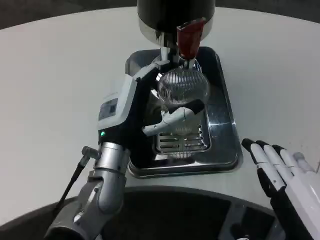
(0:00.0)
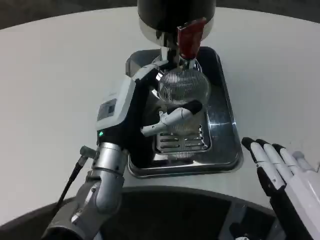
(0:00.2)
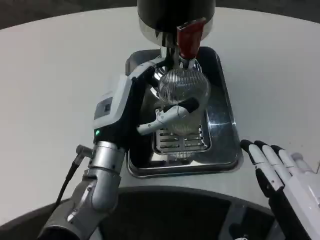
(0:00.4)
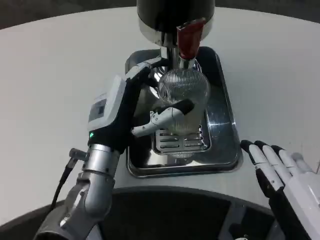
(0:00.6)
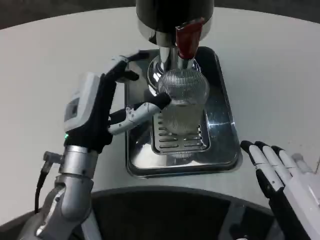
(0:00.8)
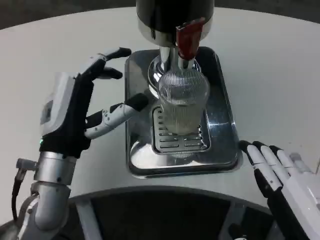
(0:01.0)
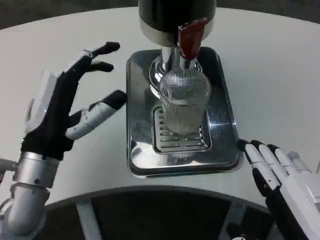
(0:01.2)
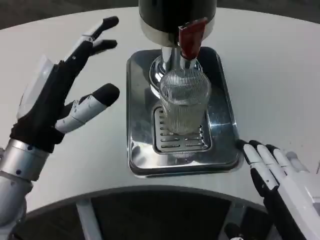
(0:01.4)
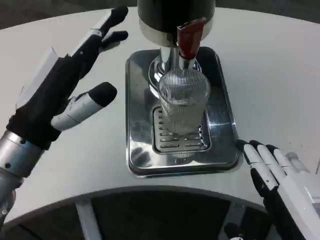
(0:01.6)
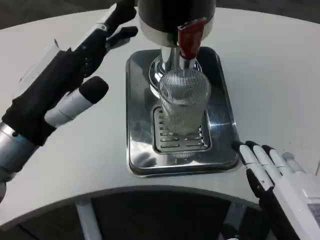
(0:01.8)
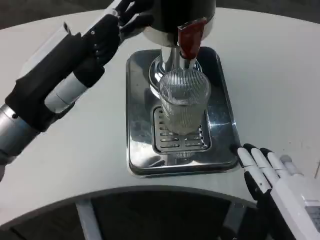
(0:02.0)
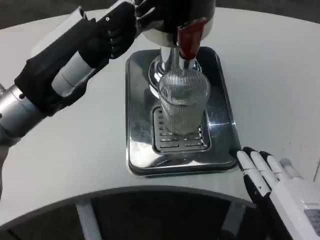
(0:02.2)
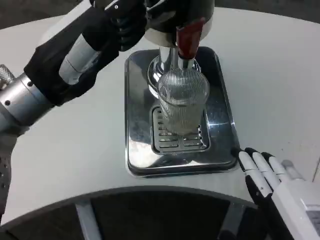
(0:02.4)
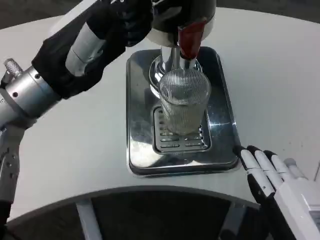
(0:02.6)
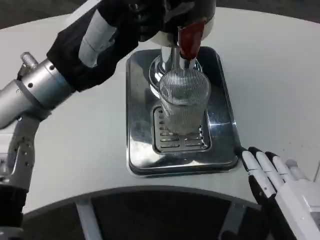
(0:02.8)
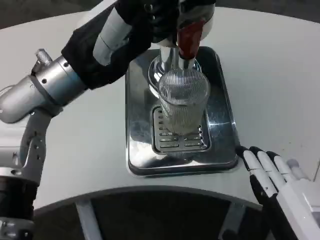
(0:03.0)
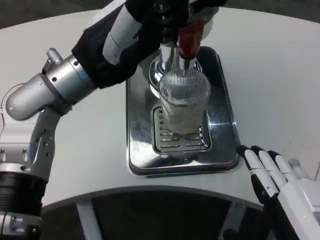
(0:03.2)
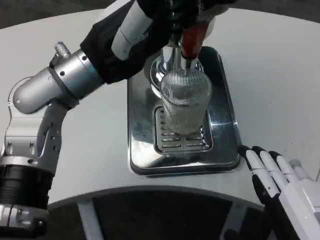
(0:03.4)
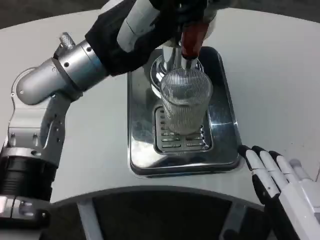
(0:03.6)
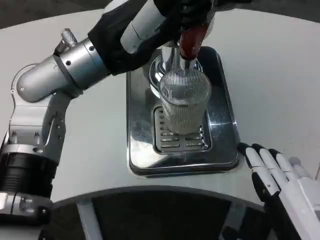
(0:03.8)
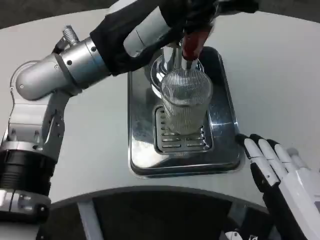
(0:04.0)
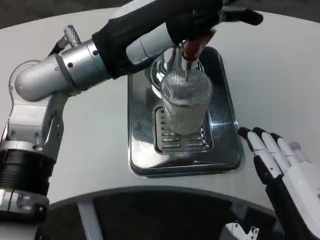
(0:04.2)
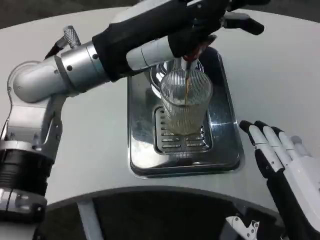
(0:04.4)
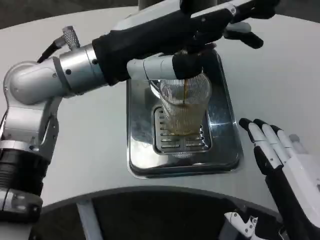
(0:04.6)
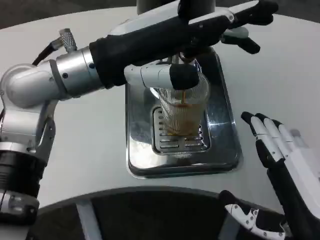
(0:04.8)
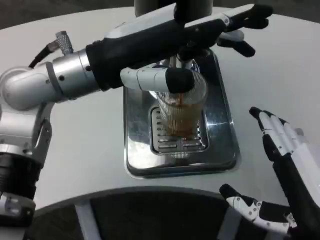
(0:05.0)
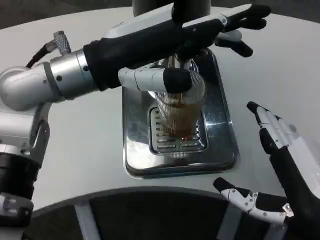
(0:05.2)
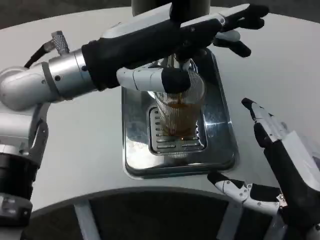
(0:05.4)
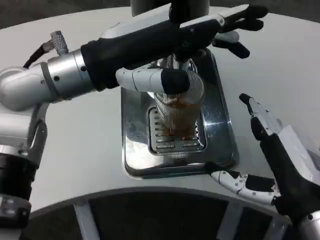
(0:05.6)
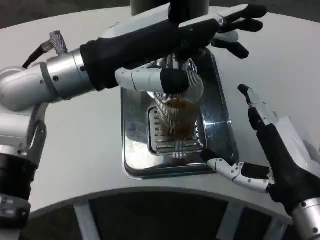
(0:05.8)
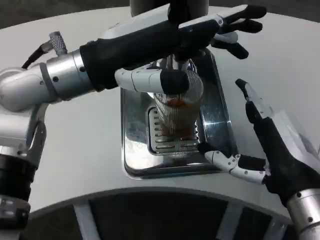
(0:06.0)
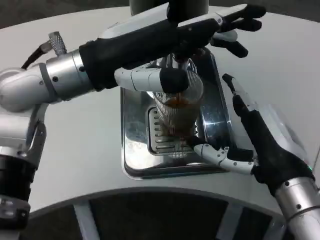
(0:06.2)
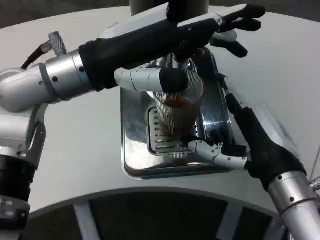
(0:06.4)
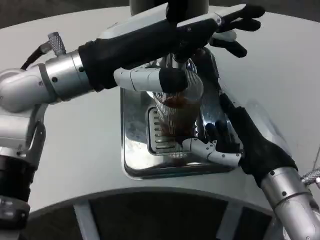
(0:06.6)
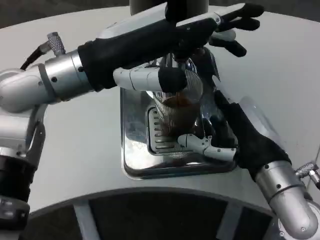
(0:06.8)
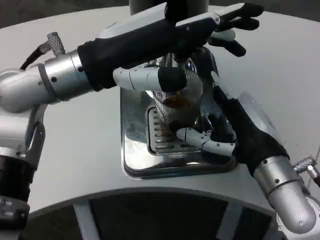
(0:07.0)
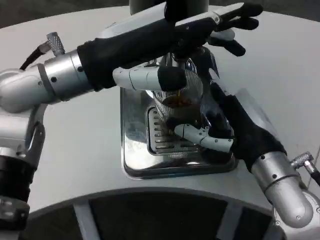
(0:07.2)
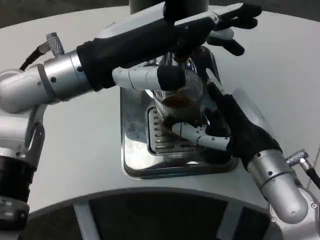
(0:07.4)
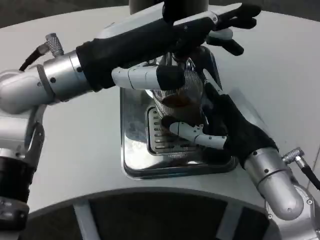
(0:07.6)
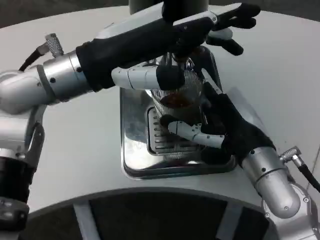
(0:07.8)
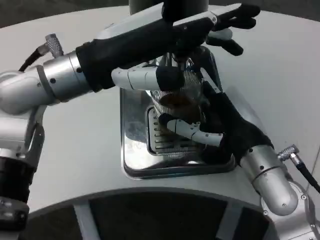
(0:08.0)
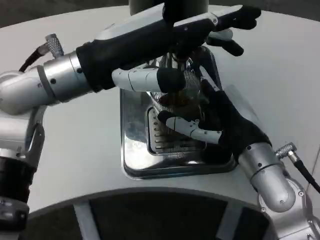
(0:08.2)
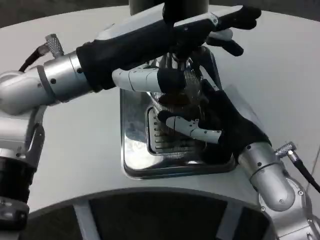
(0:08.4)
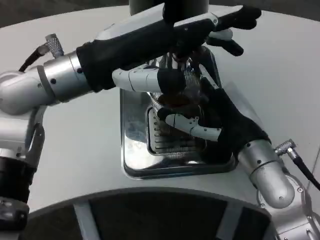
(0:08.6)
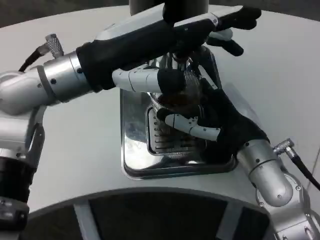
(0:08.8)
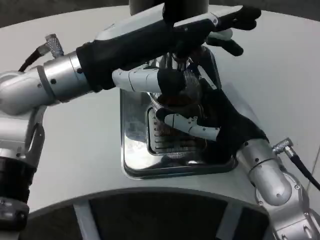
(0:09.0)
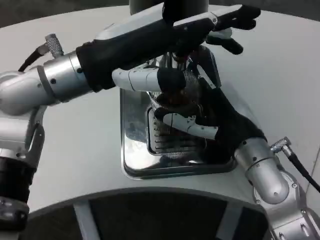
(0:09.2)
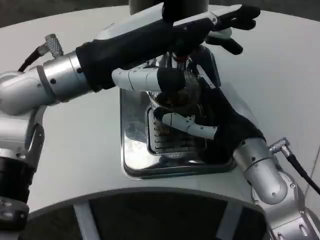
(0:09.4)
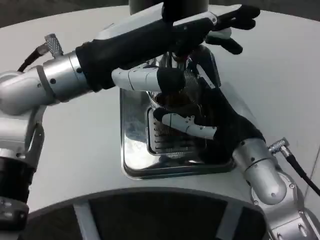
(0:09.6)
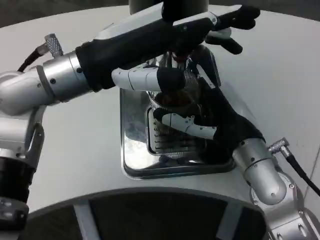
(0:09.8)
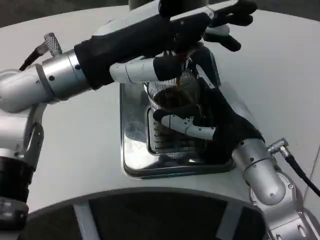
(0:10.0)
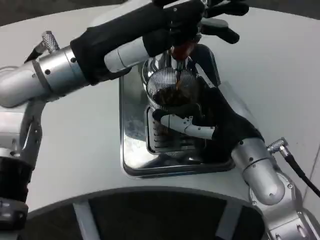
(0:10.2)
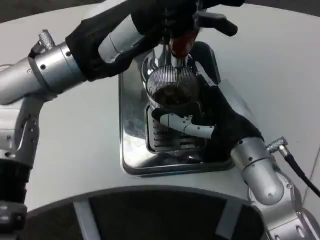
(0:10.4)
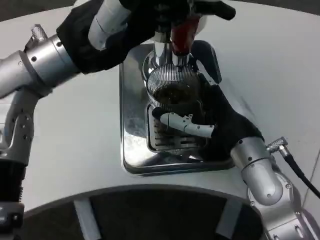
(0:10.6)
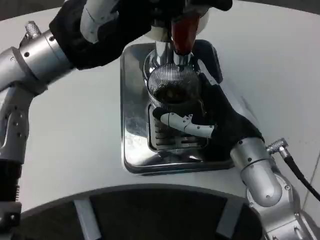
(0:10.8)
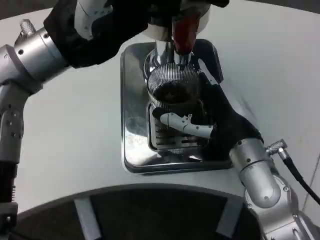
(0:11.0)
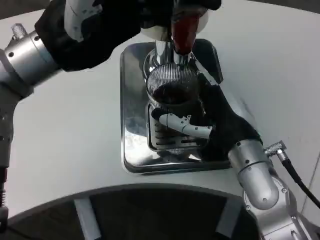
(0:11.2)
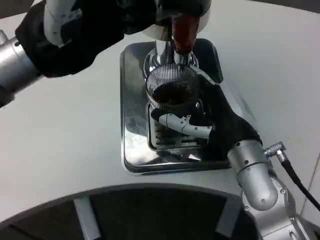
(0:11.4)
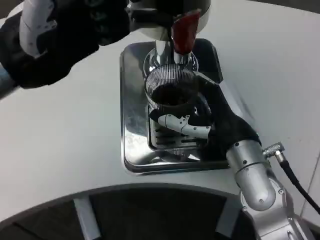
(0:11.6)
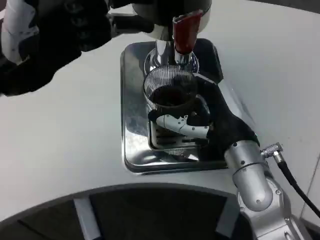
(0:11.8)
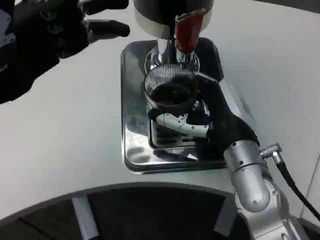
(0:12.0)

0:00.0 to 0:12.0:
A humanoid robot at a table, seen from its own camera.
Task of the whole recording: Grasp the cup under the faucet to collect the drink, then remove the cup.
0:00.0 to 0:01.6: The left hand is displaced to the left, upward and backward by about 15 cm.
0:01.6 to 0:03.0: The left hand shifts approximately 10 cm upward and forward.
0:04.4 to 0:06.0: The right hand heads forward, covering roughly 10 cm.
0:06.0 to 0:07.6: The right hand is displaced forward by roughly 5 cm.
0:07.6 to 0:09.0: There are only small adjustments of the hands.
0:10.4 to 0:12.0: The left hand heads to the left and backward, covering approximately 10 cm.

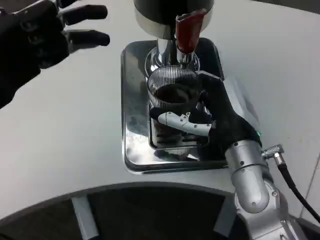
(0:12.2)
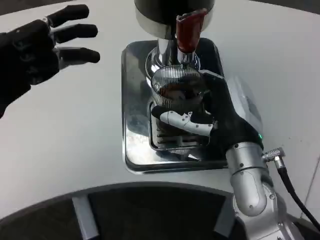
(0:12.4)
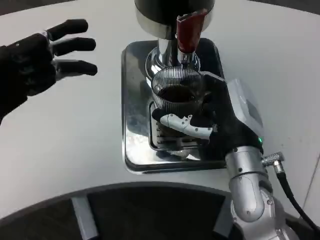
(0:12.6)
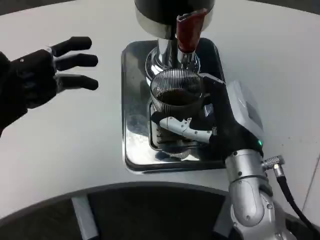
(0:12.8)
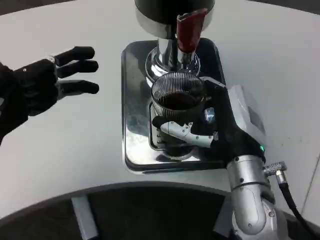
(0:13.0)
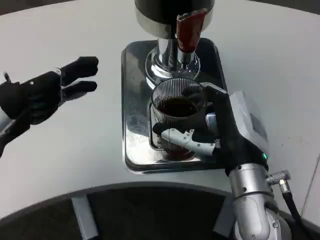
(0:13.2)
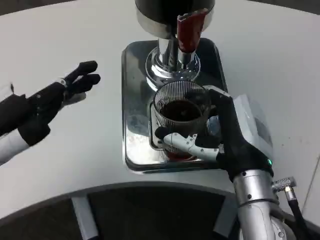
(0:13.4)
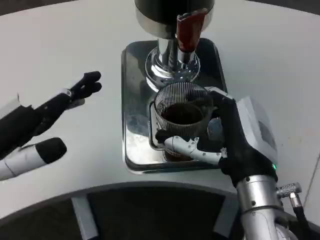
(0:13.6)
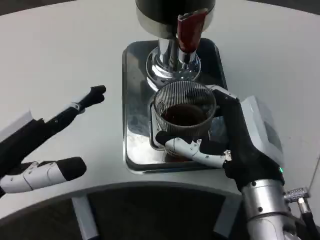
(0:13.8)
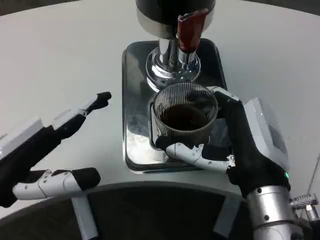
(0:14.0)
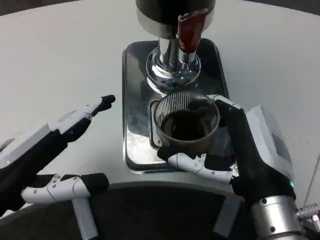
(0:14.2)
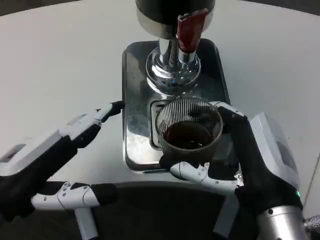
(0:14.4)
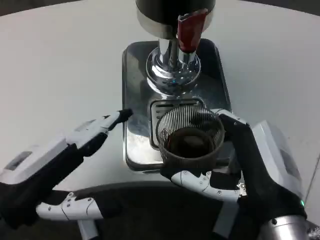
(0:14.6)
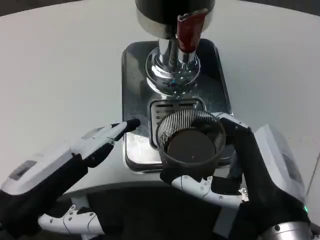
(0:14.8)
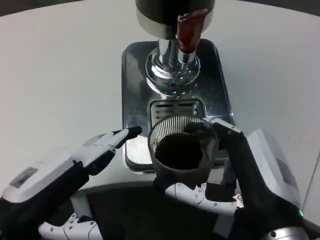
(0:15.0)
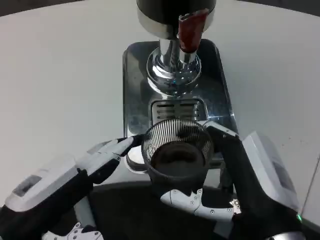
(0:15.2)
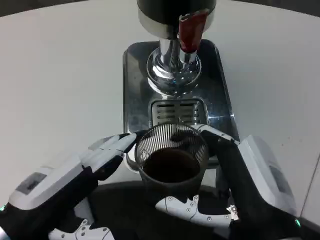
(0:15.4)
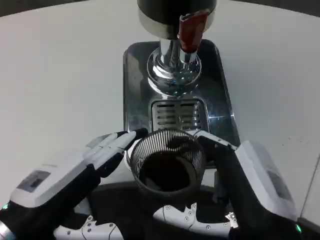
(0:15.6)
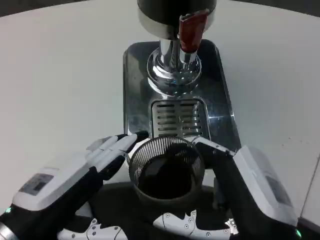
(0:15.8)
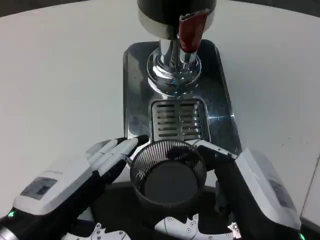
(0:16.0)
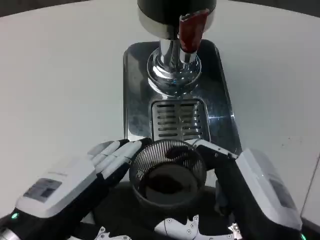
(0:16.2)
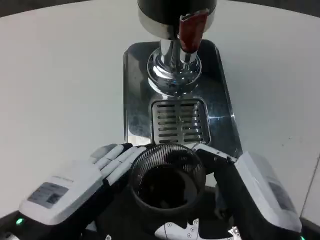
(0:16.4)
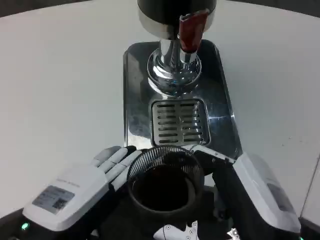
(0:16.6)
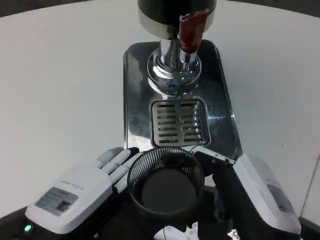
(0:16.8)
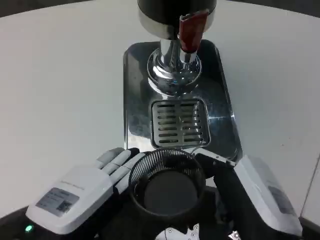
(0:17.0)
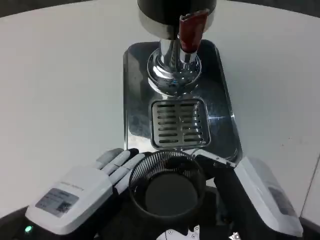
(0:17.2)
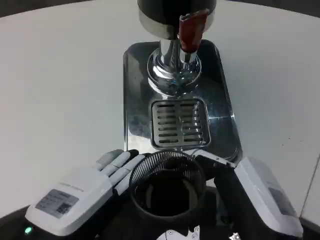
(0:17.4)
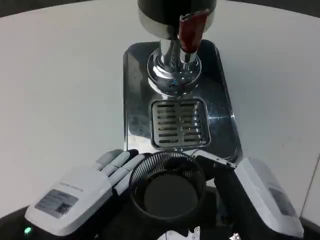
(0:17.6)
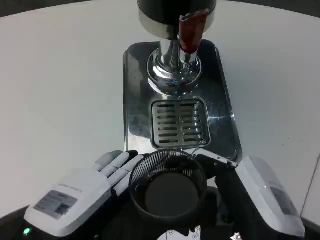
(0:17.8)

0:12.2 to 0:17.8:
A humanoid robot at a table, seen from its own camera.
Task of the whole recording: Grasp the cup under the faucet to collect the drink, then remove the cup.
0:12.2 to 0:13.6: The left hand is displaced downward and backward by approximately 10 cm; the right hand shifts about 5 cm backward.
0:13.6 to 0:15.0: The left hand goes approximately 5 cm downward; the right hand shifts about 10 cm backward.
0:16.4 to 0:17.8: Both hands stay put.

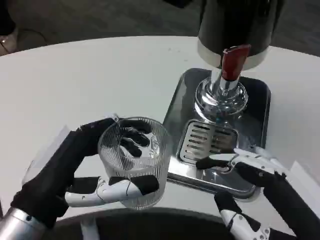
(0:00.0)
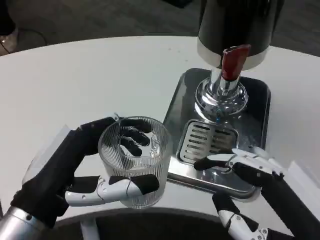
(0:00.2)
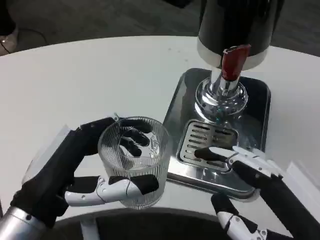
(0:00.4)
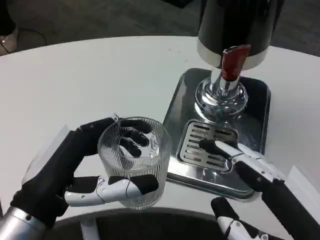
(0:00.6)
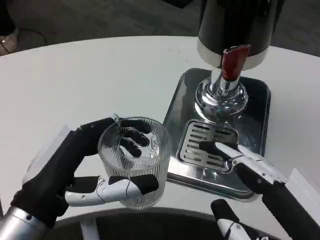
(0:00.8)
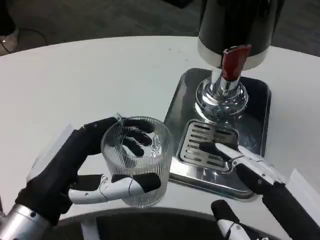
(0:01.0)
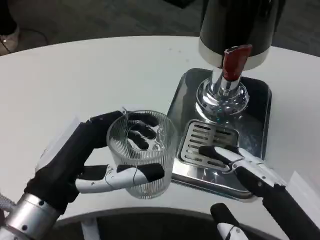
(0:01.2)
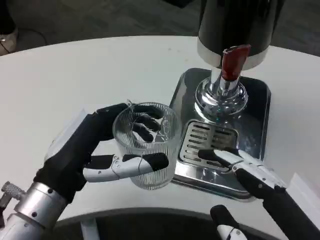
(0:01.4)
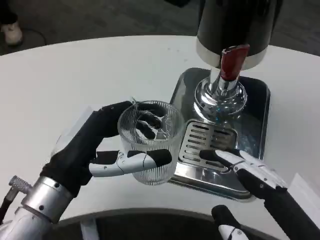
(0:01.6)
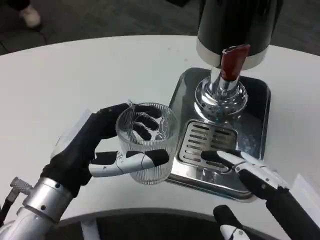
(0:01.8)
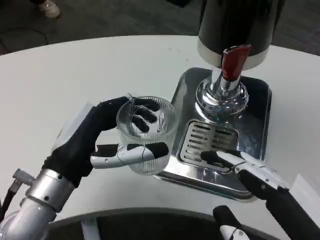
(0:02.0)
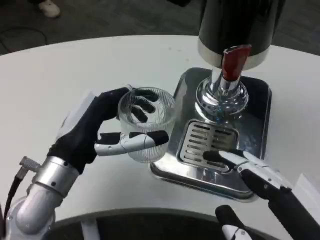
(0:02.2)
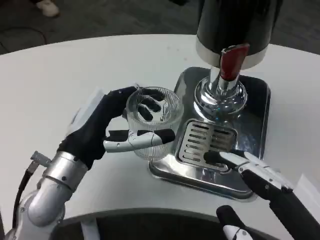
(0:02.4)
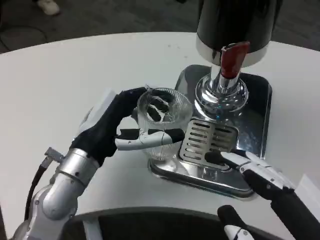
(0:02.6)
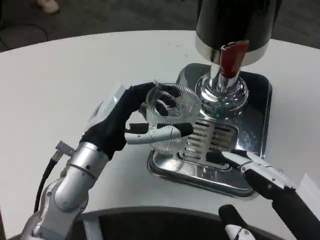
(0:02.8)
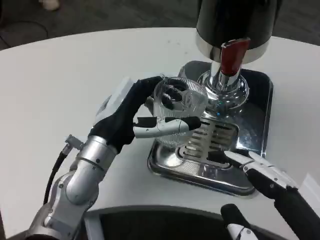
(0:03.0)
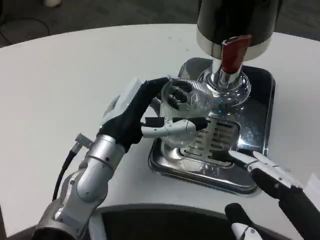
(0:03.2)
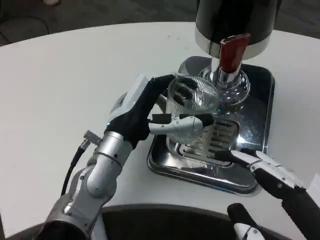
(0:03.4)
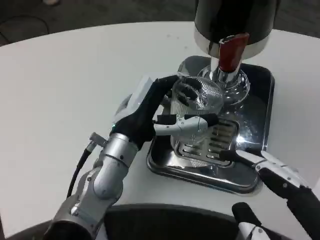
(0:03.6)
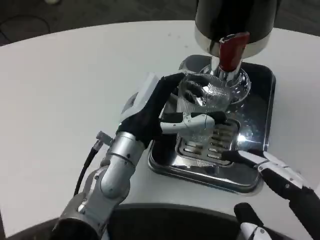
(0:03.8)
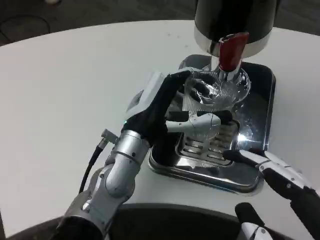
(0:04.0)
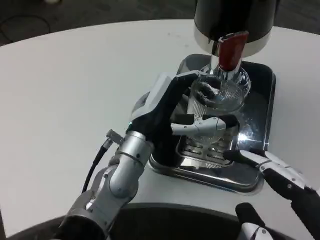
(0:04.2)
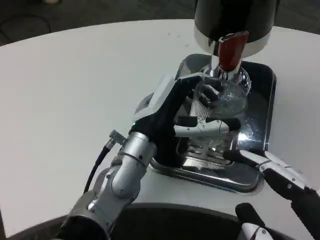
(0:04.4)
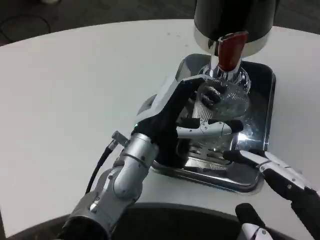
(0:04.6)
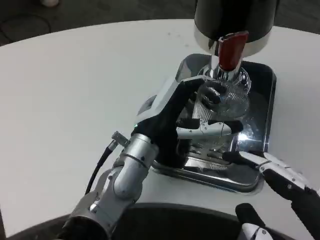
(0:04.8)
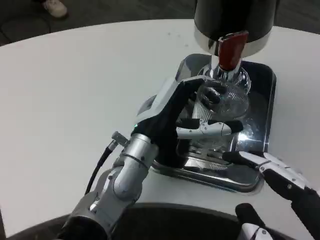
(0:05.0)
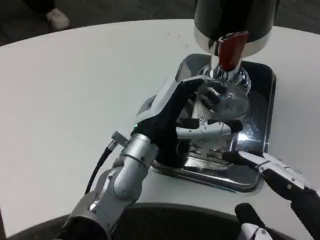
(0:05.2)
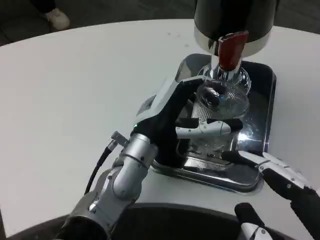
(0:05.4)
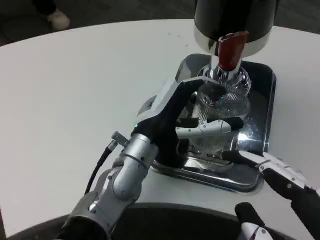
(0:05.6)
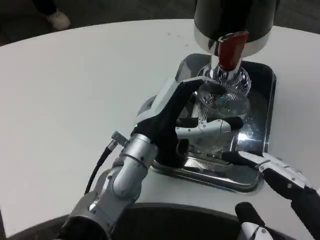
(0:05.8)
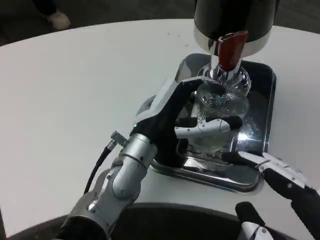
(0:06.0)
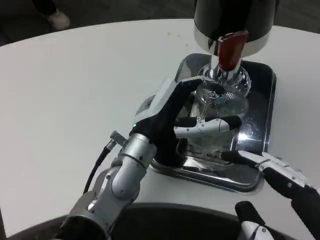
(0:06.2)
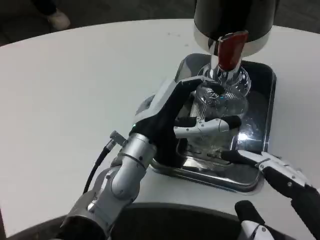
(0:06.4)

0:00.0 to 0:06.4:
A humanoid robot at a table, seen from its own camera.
Task of the whole recording: Grasp the cup under the faucet to collect the drink, then remove the cup.
0:00.0 to 0:01.6: The left hand heads forward, covering roughly 5 cm.
0:01.6 to 0:03.2: The left hand travels forward and to the right by about 10 cm.
0:04.8 to 0:06.4: Both hands stay put.
